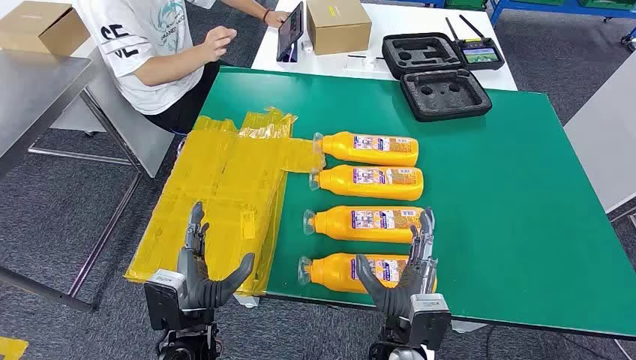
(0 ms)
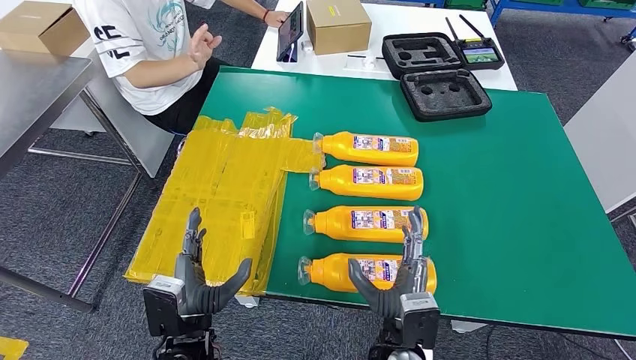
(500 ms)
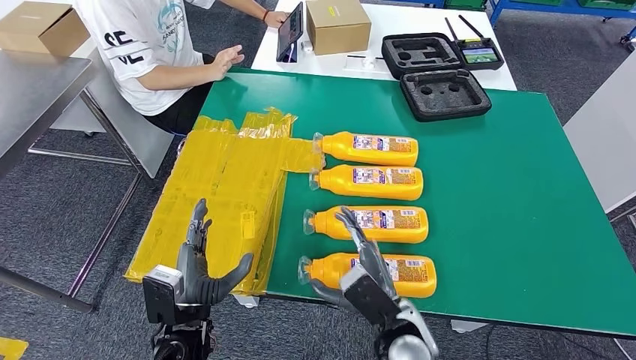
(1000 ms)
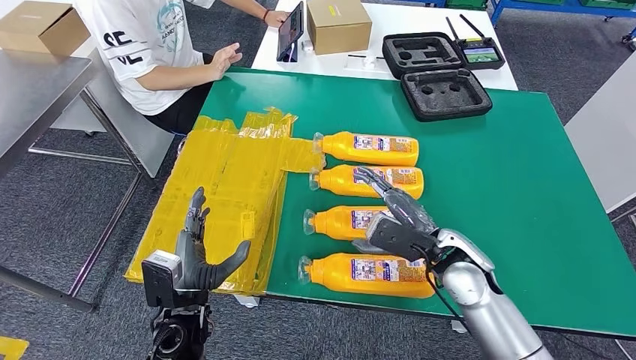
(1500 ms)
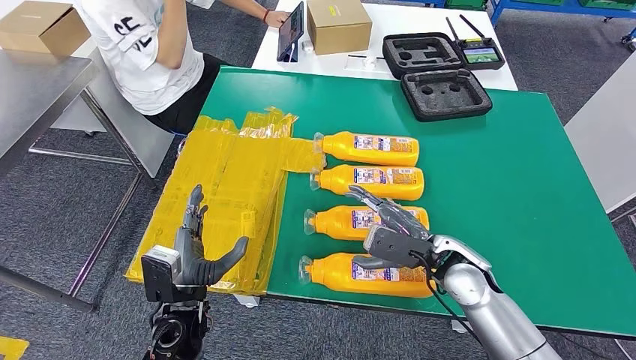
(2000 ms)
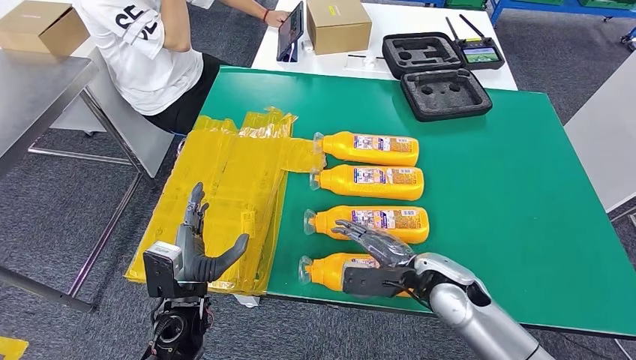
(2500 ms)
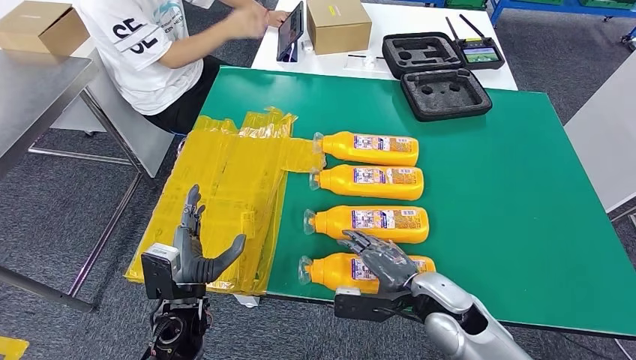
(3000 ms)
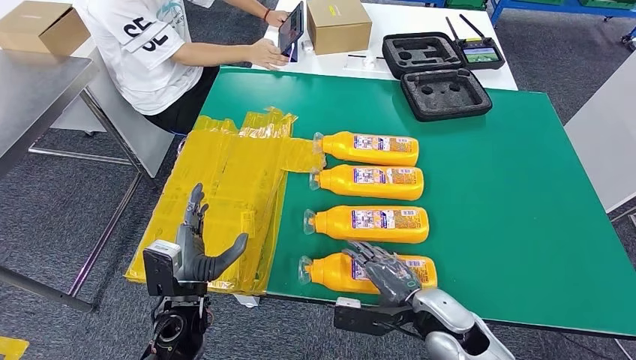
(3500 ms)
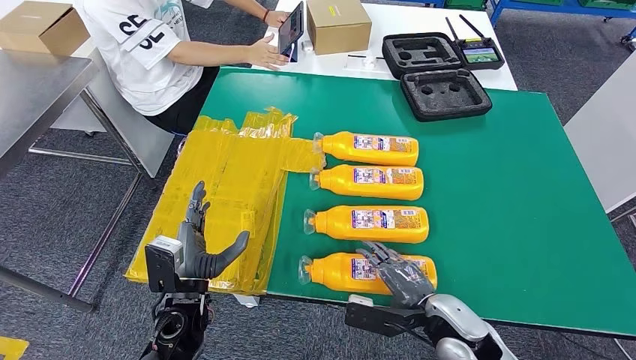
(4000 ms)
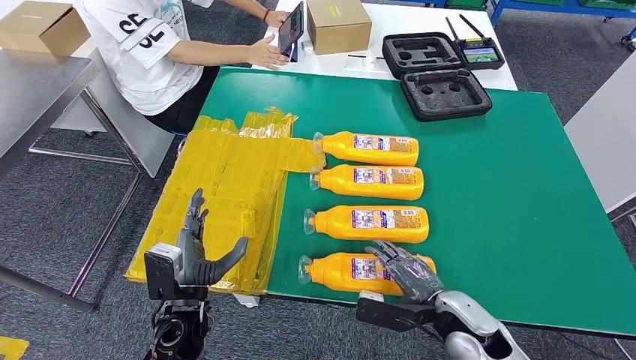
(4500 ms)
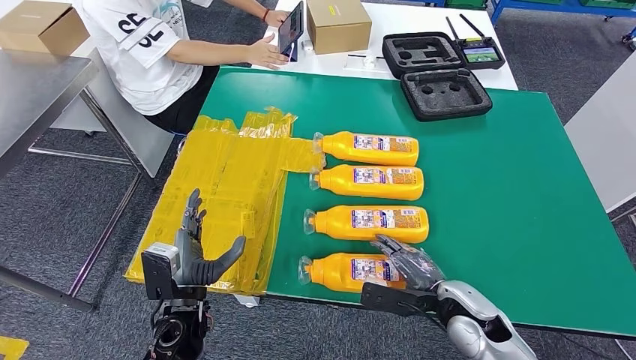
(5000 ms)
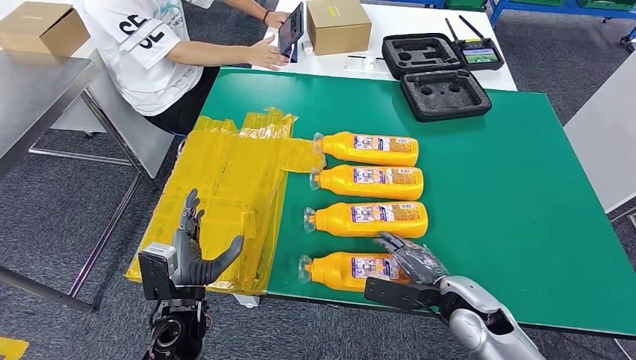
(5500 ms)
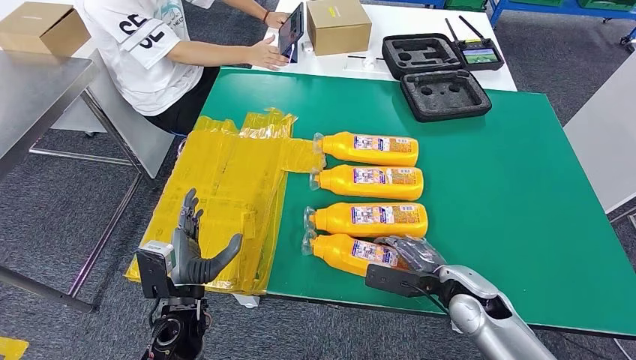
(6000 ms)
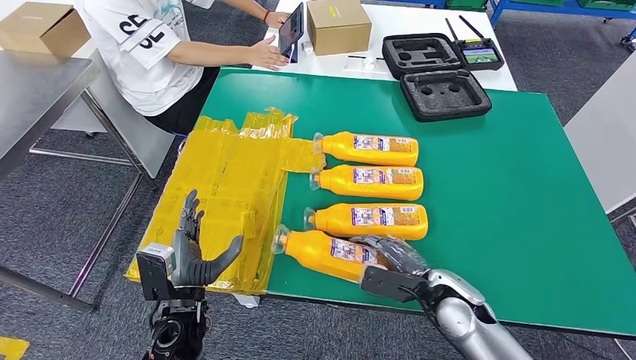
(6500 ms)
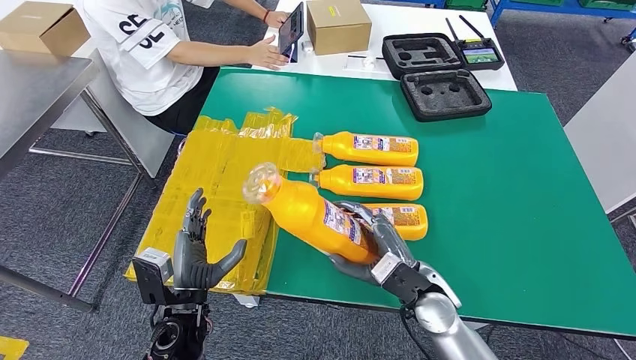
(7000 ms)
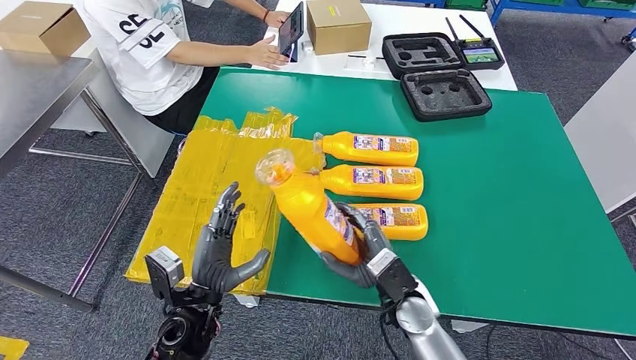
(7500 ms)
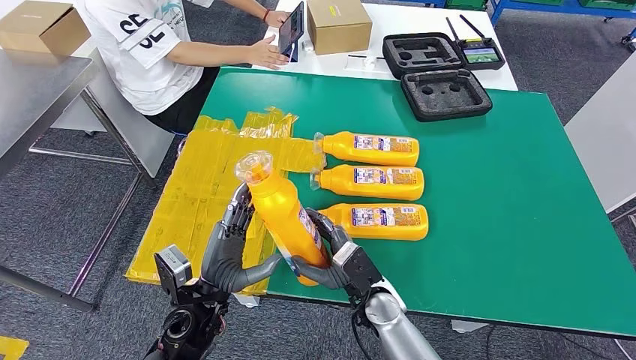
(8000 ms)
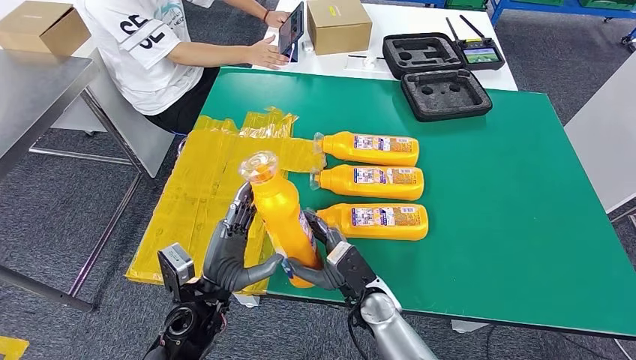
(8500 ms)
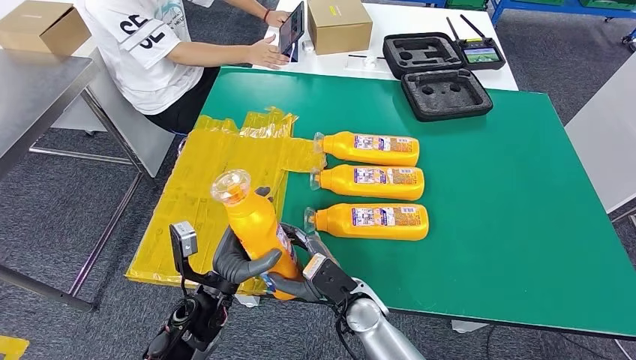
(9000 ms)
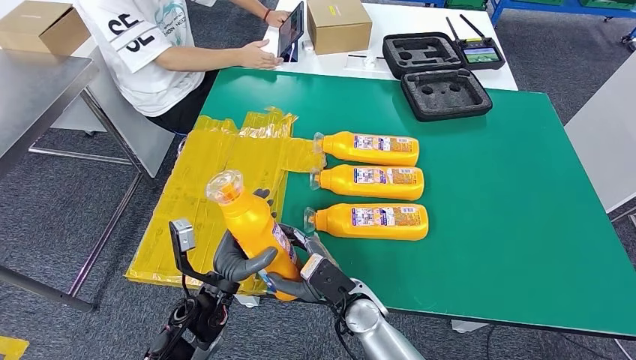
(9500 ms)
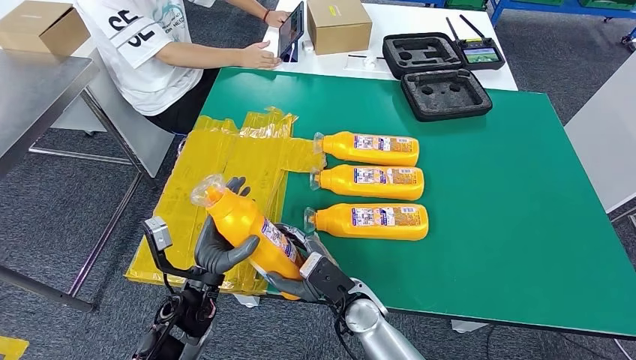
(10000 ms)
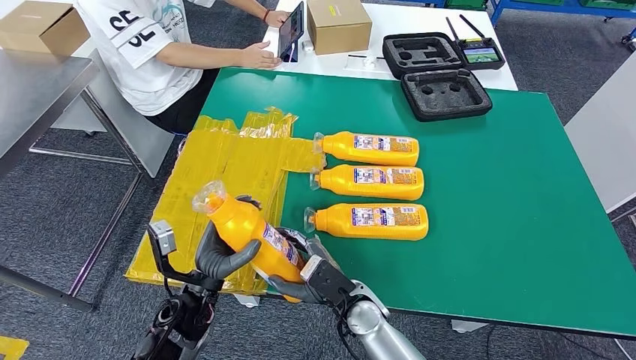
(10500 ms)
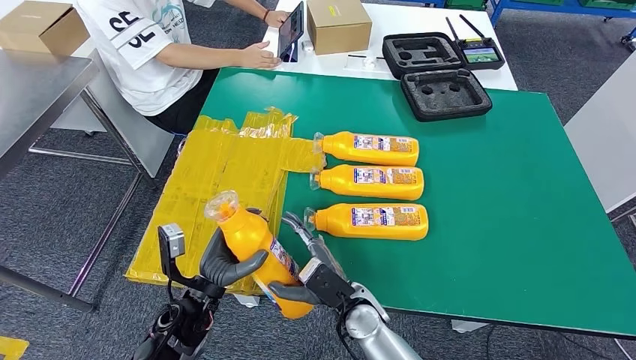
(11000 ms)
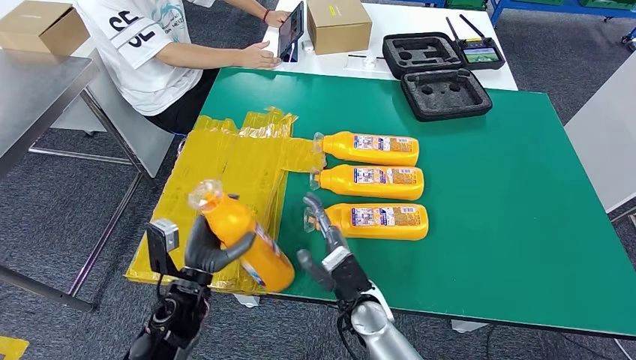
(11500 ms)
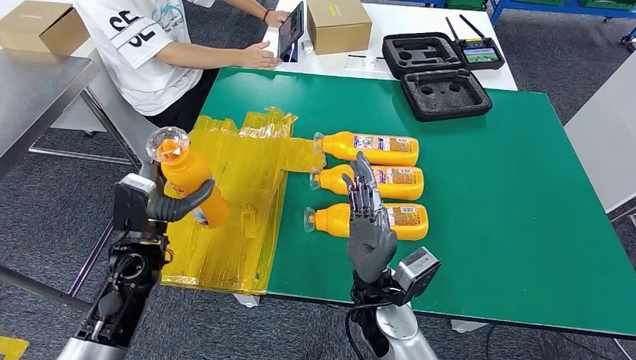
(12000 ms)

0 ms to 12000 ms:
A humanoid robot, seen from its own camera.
Step, 0 ms to 8500 ms: Take the bottle from the table.
2000 ms to 4000 ms: The right hand shifts some 10 cm backward and downward.
4000 ms to 6000 ms: The right hand is displaced forward by some 5 cm.
6000 ms to 8000 ms: The right hand travels to the left by approximately 15 cm.
10000 ms to 12000 ms: The right hand travels upward by some 10 cm. Meanwhile the left hand shifts about 10 cm to the left, upward and forward.

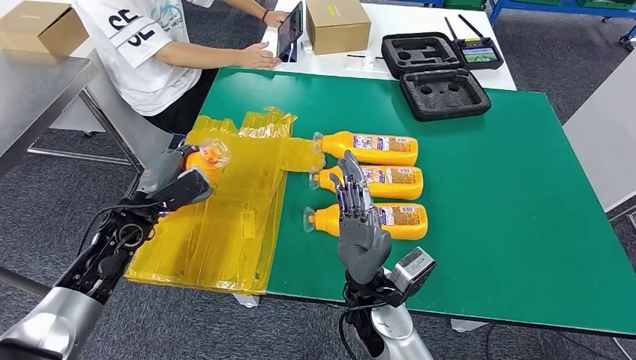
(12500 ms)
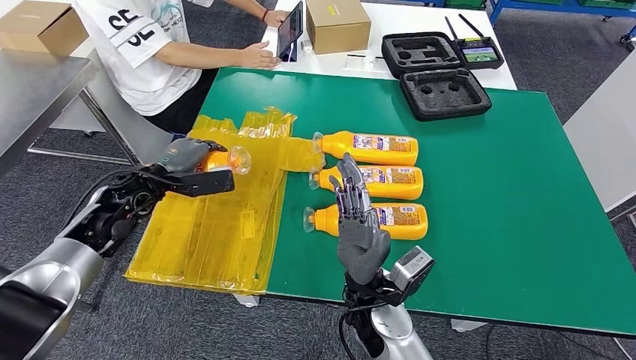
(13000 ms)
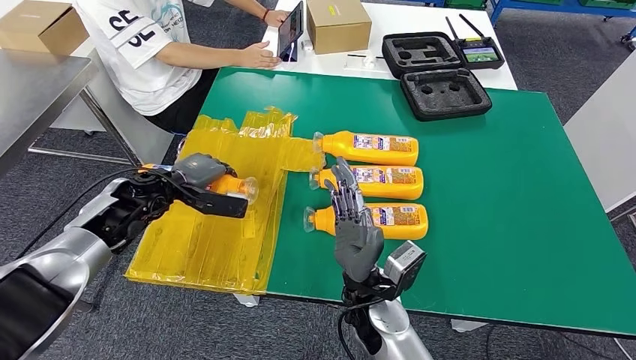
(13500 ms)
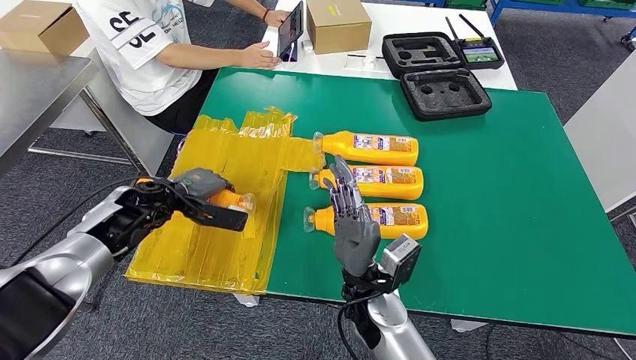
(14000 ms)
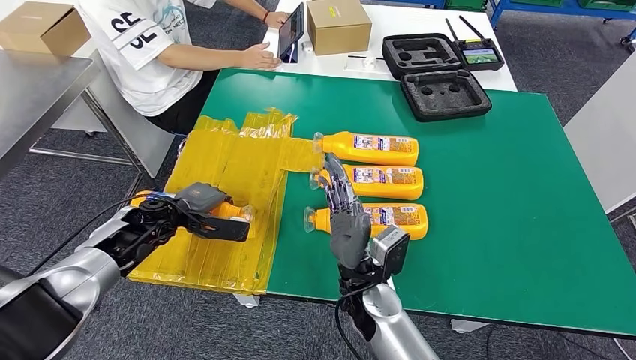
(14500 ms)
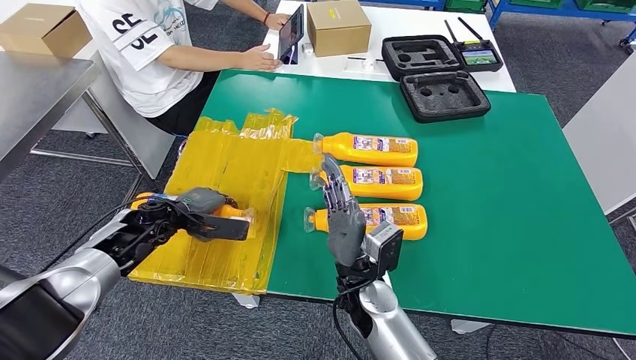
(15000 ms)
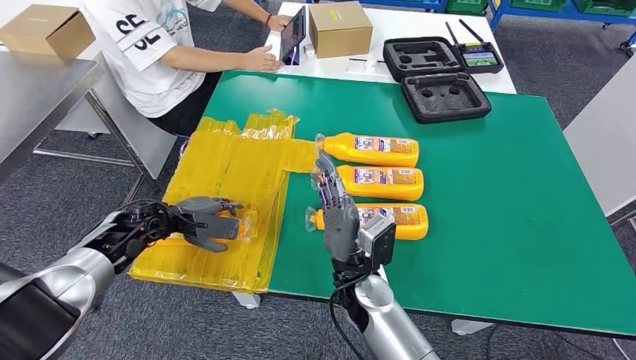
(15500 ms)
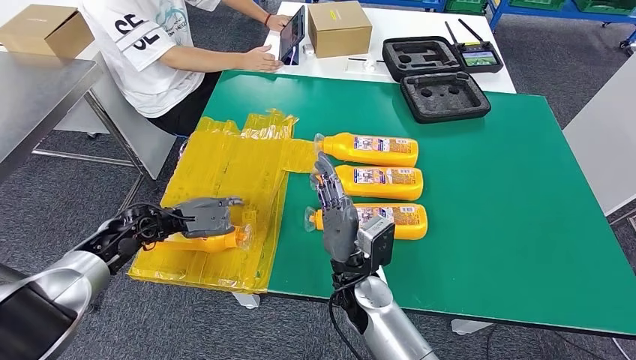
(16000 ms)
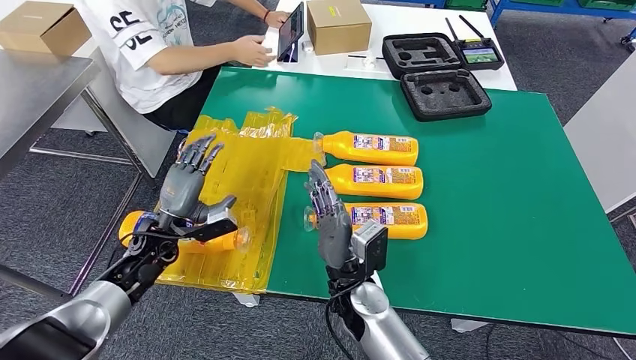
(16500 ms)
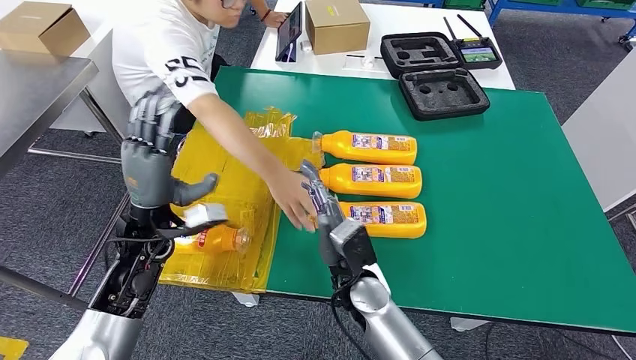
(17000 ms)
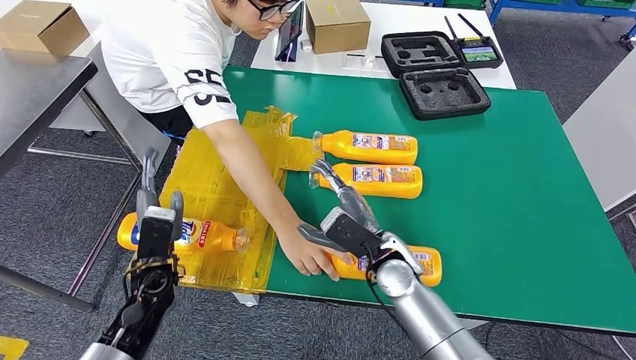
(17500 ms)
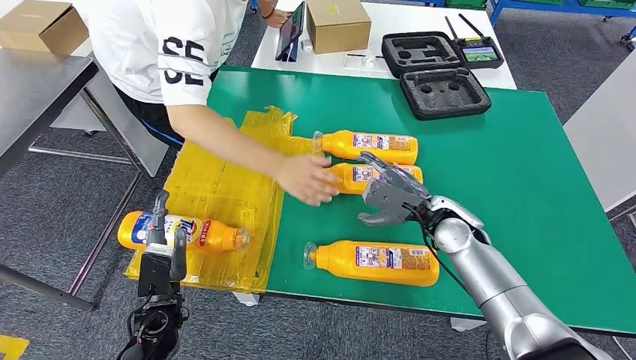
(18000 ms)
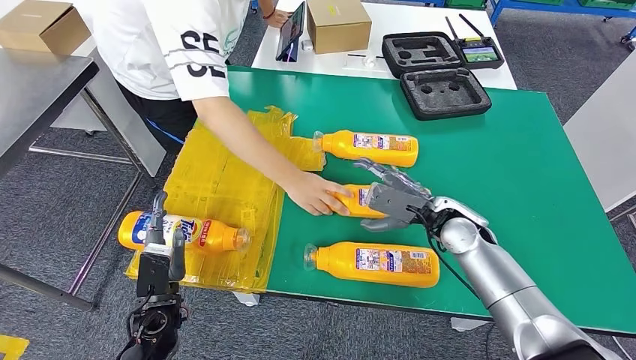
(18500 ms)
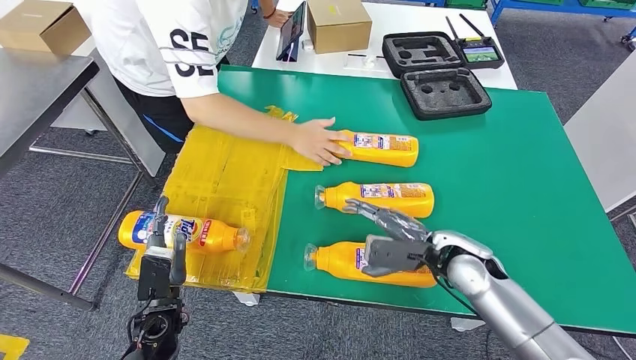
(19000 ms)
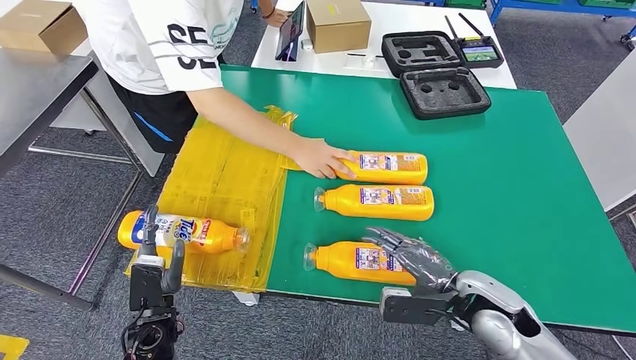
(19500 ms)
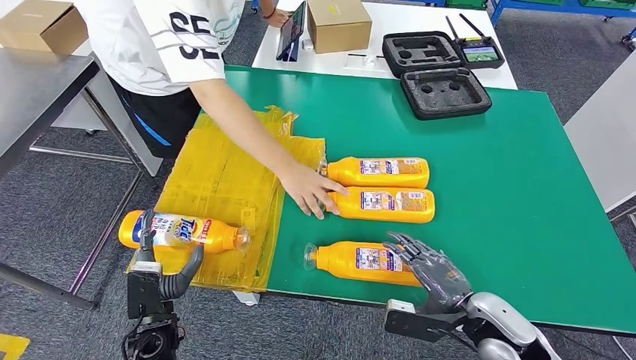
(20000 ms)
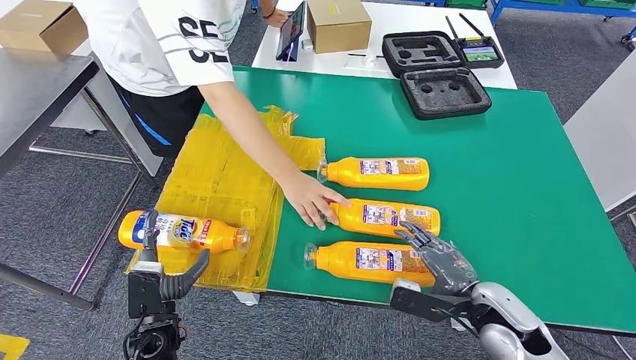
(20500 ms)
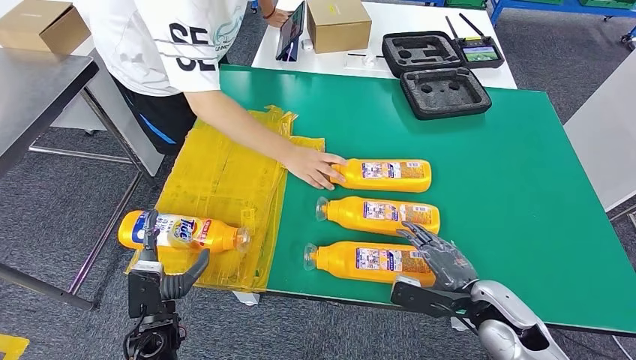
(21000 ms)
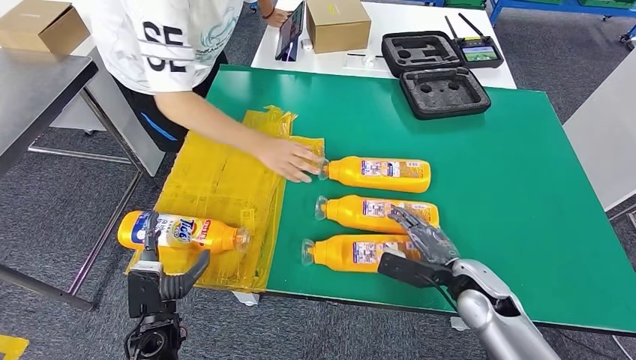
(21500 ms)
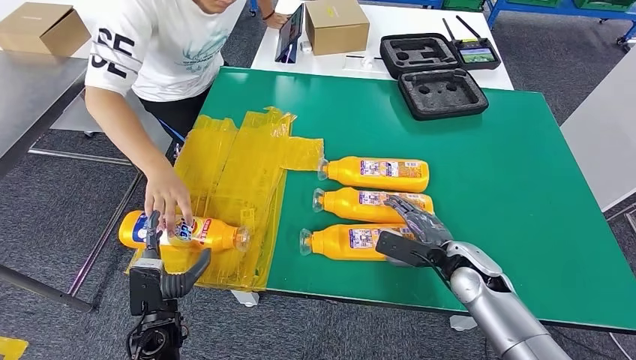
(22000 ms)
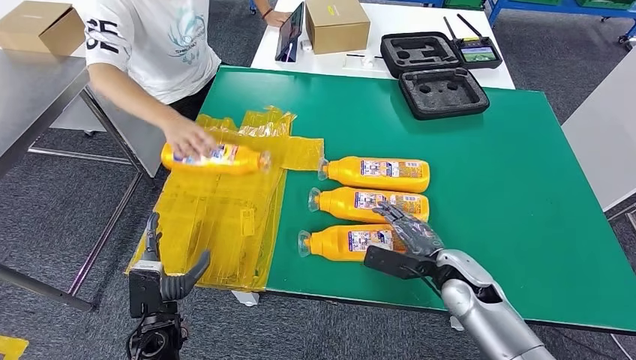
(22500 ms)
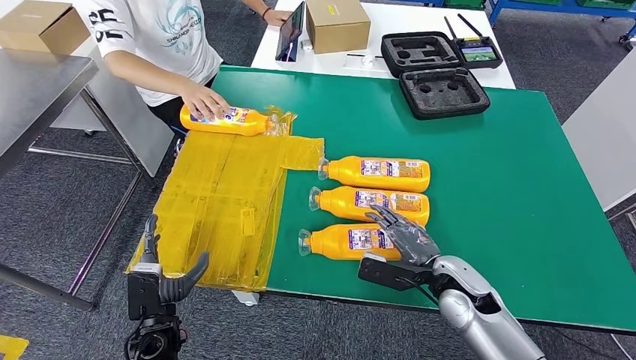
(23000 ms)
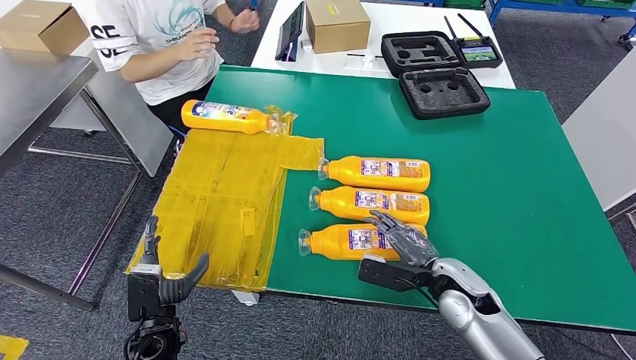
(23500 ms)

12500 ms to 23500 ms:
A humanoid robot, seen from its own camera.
Step, 12500 ms to 16000 ms: Flip the bottle to face forward.
12500 ms to 14500 ms: The left hand moves approximately 5 cm.
18000 ms to 20000 ms: The right hand moves backward, approximately 15 cm.
20000 ms to 21500 ms: The right hand shifts approximately 5 cm forward.
21500 ms to 23500 ms: The hands stay close to where they were, moving slightly.
